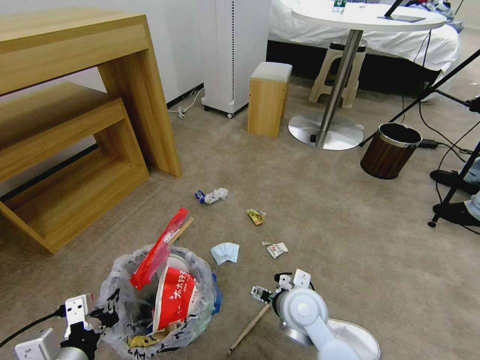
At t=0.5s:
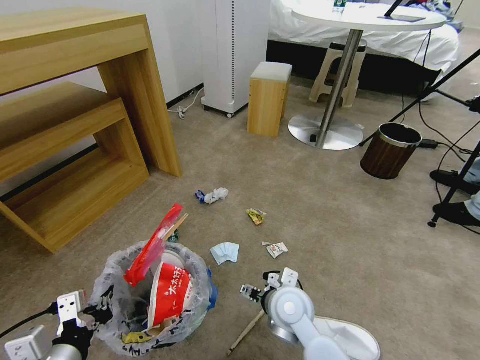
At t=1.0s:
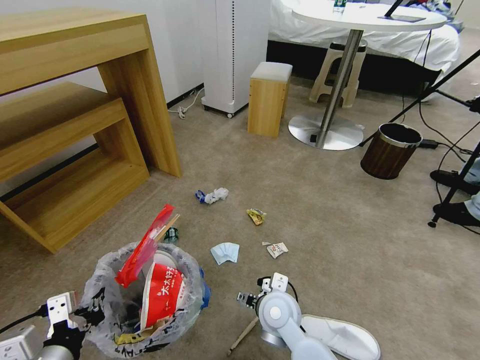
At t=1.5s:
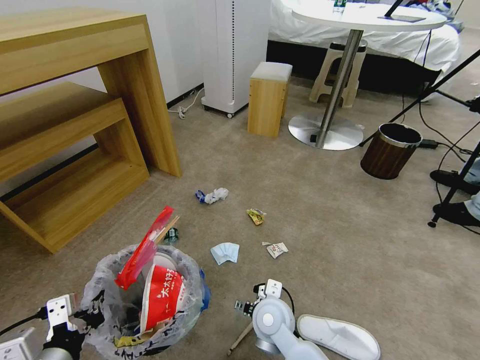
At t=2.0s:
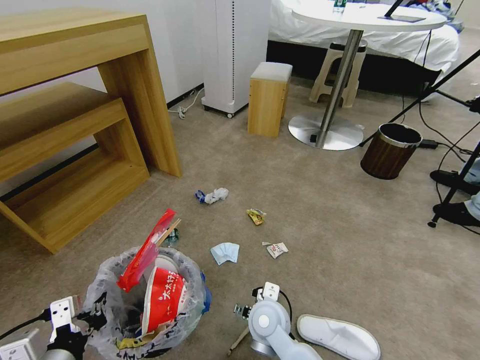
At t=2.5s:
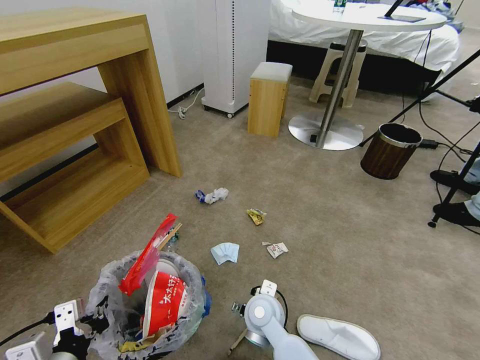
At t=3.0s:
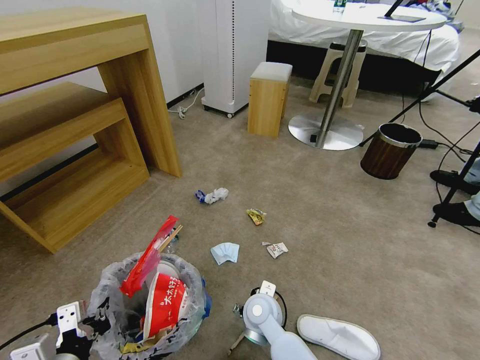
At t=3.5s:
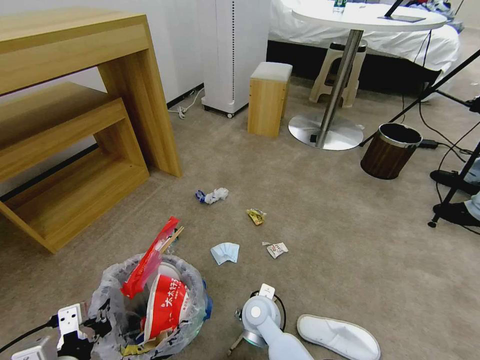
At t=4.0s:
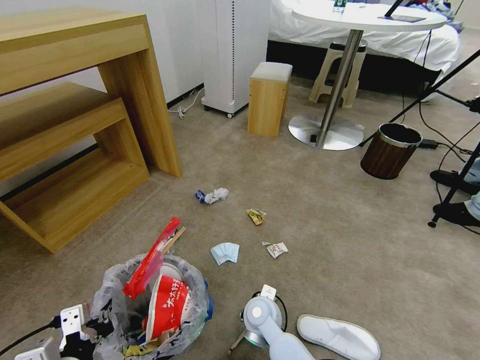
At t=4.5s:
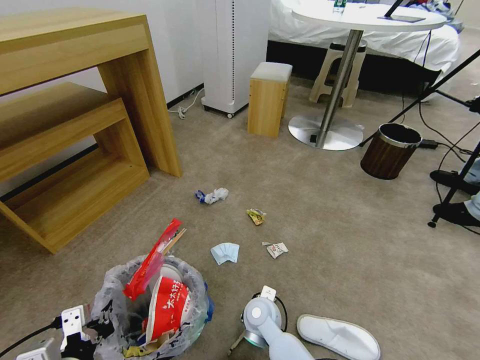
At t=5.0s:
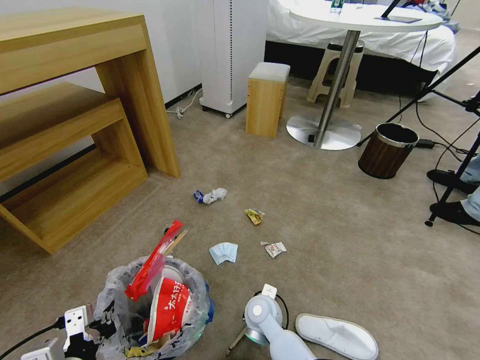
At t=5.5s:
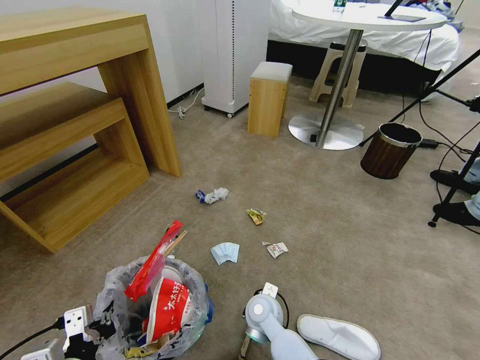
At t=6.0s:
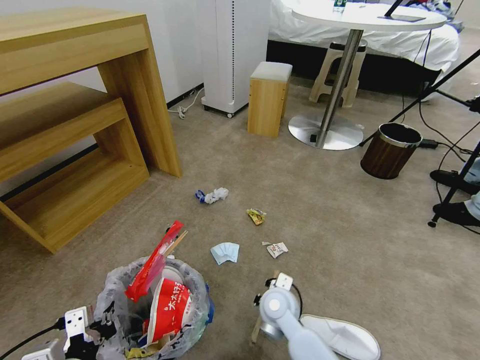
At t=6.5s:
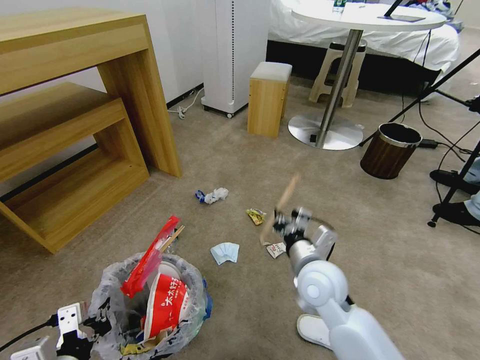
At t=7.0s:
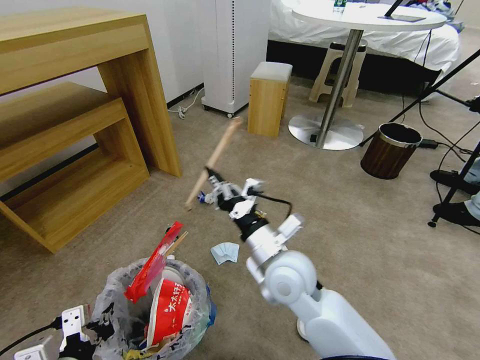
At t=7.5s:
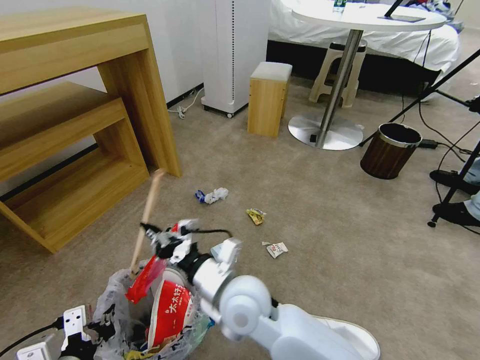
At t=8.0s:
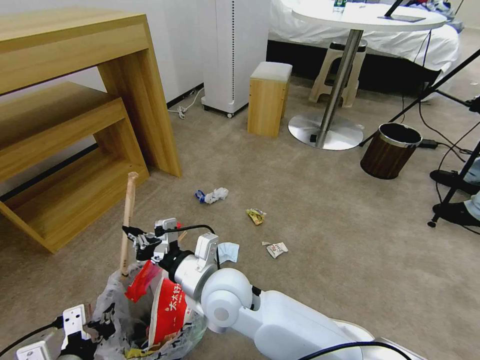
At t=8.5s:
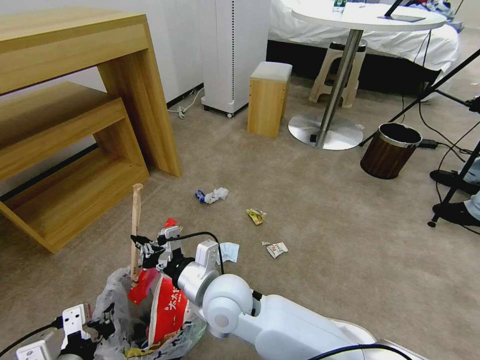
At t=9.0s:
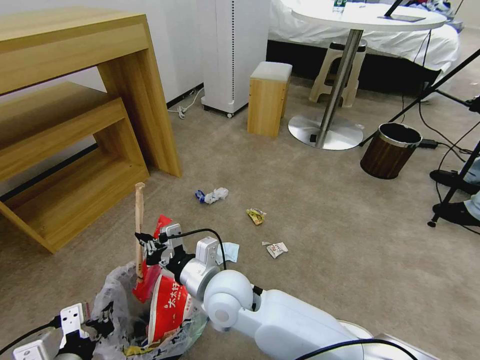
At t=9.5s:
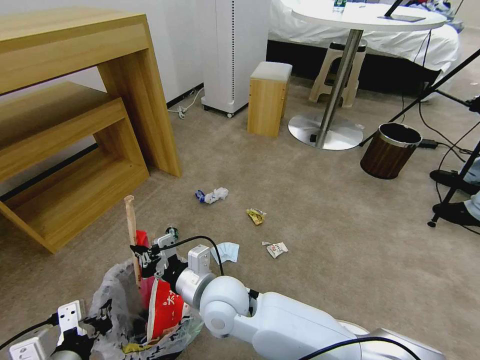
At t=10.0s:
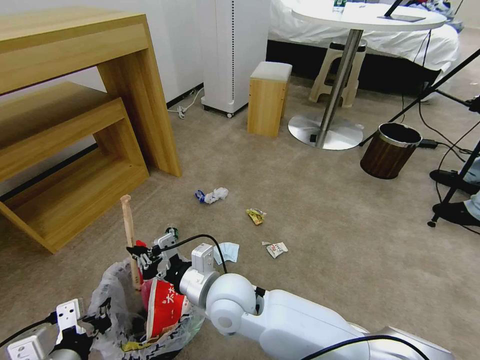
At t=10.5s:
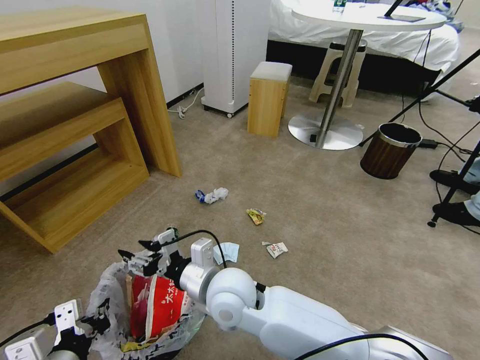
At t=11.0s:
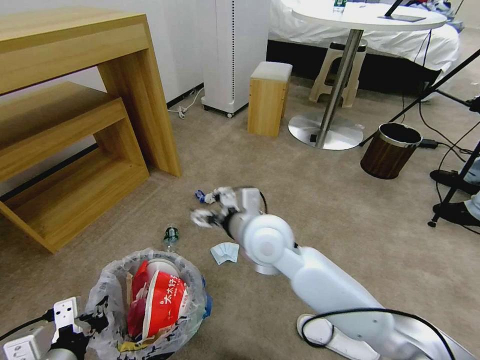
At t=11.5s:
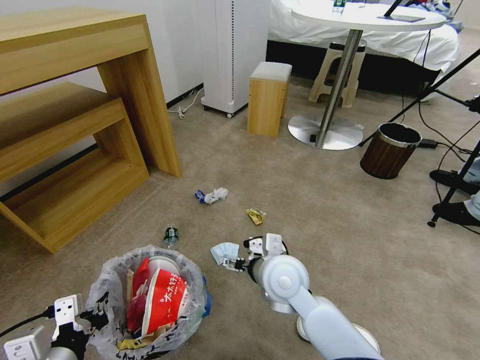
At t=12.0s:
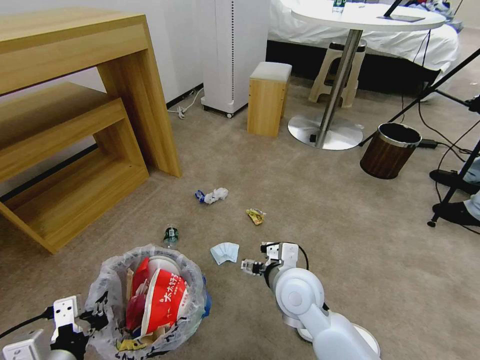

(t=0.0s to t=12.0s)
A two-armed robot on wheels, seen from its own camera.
Task of the whole recording: Pick up the trash bin and place the garbage on the floor into it.
t=0.0s - t=2.0s: The right gripper goes some 10 cm to the left and downward.
t=2.0s - t=4.0s: The right gripper ends up roughly 5 cm from where it was, and closes up.
t=4.0s - t=6.0s: The right gripper shifts by about 5 cm, and closes up.
t=6.0s - t=8.0s: The right gripper is displaced upward and to the left by about 20 cm.
t=8.0s - t=10.0s: The grippers make only small movements.
t=10.0s - t=12.0s: The right gripper shifts about 15 cm to the right, and opens its fingers.

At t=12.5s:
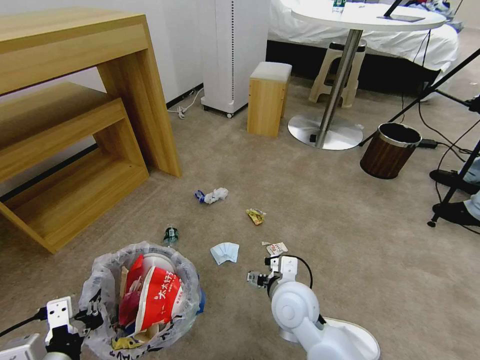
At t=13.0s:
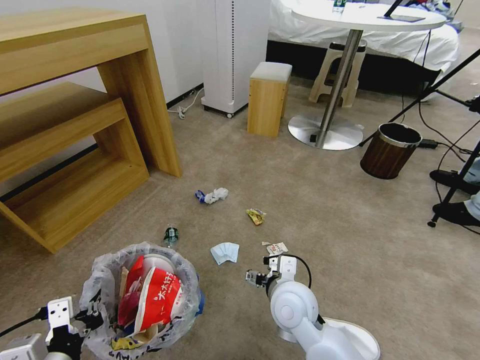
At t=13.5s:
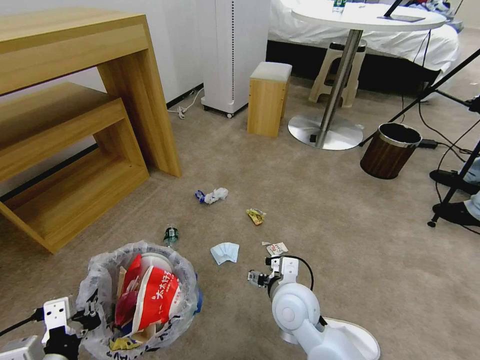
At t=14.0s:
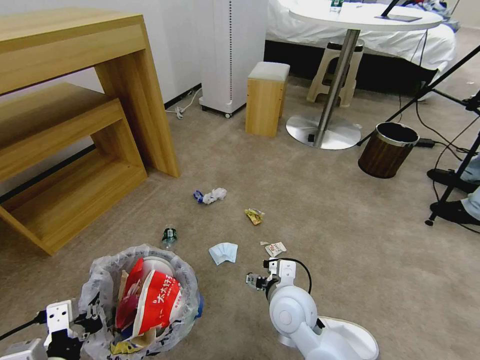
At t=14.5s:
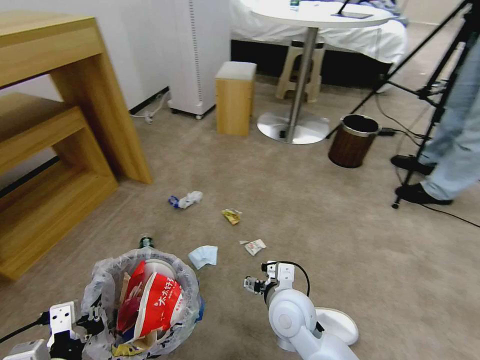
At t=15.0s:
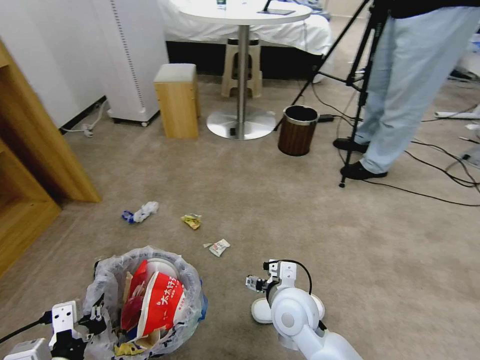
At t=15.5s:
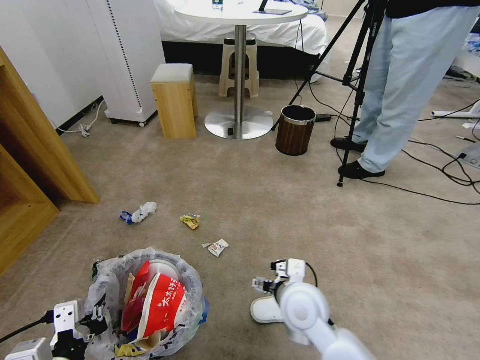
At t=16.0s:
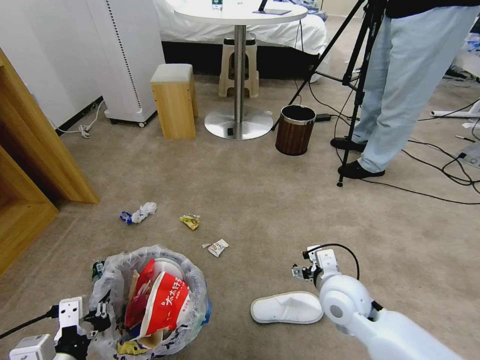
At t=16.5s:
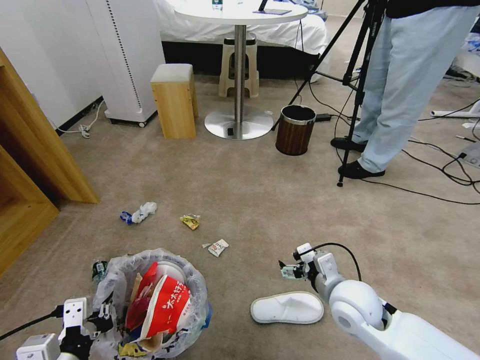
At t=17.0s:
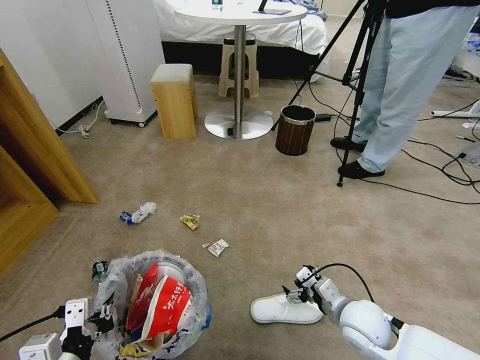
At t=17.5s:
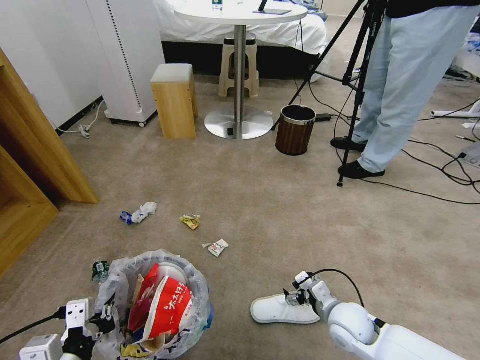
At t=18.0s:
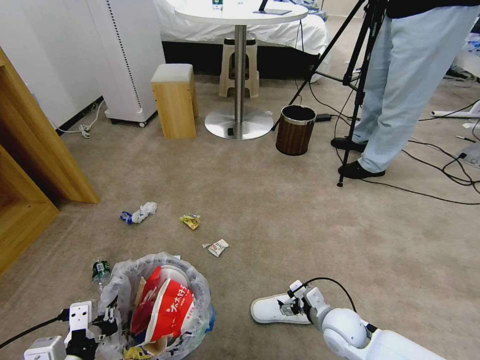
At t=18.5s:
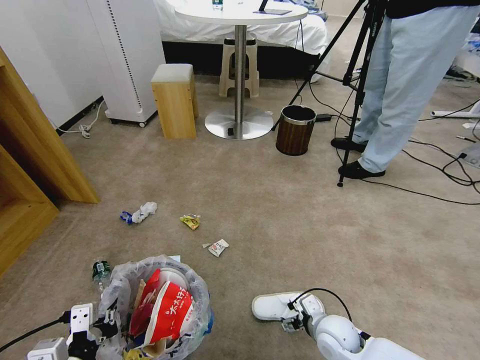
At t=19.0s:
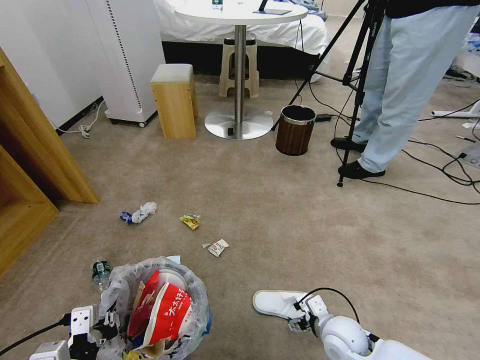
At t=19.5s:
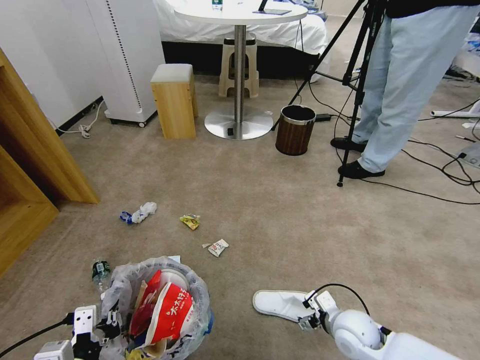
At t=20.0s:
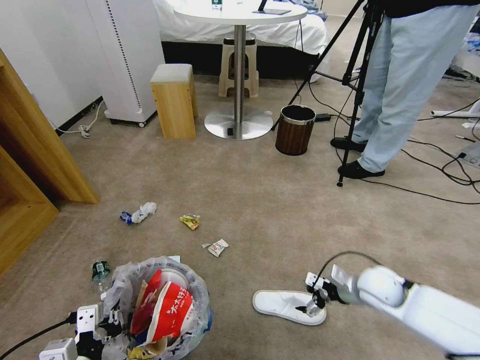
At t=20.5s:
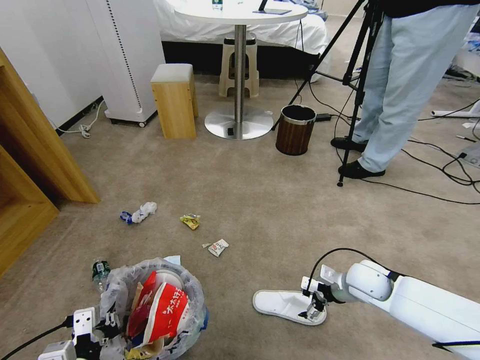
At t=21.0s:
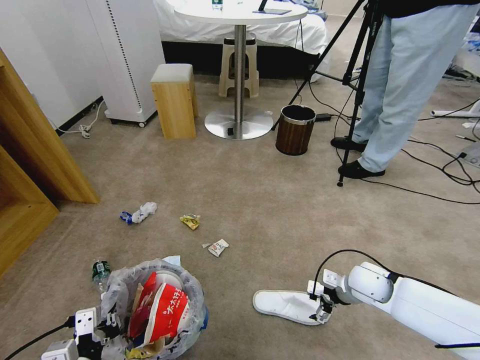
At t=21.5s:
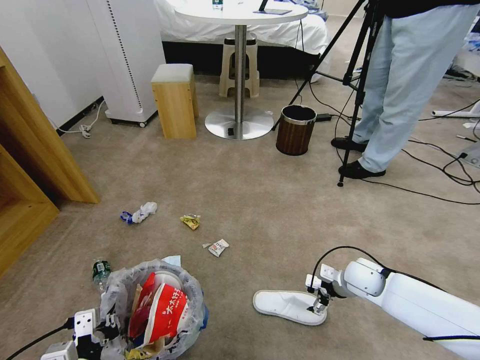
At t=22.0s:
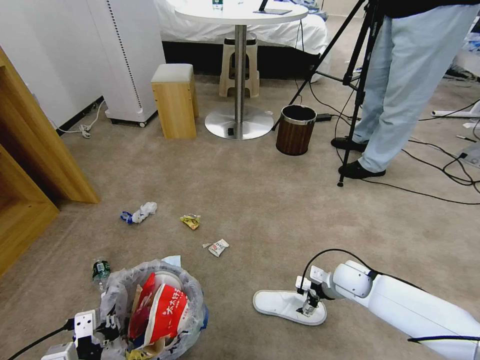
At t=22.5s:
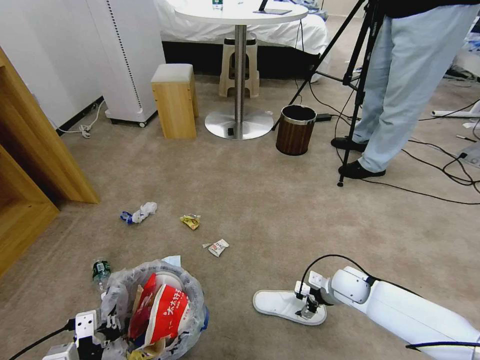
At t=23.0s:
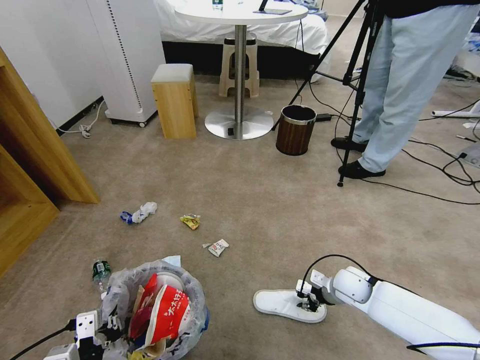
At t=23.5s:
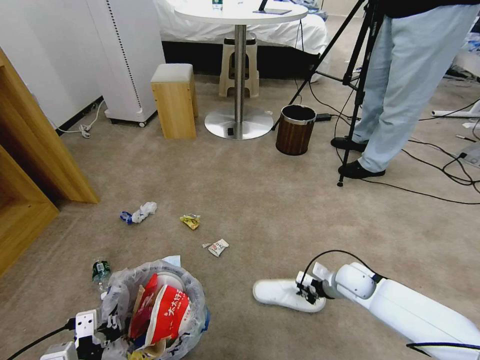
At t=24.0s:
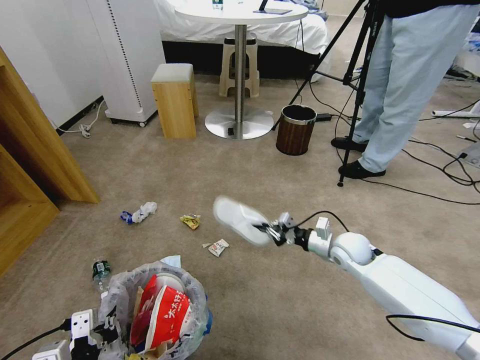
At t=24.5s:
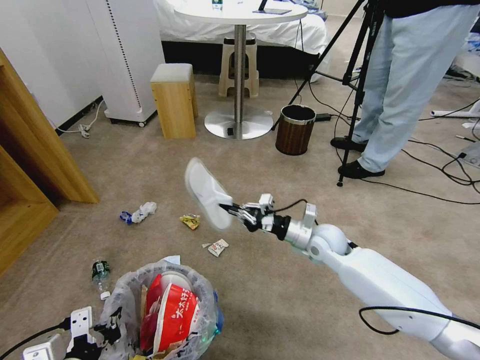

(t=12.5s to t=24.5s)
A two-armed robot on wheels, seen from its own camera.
Task of the whole recording: Pick up the trash bin and place the garbage on the floor into it.
t=14.5s - t=16.5s: The right gripper goes about 15 cm to the right.
t=16.5s - t=18.5s: The right gripper travels downward by roughly 15 cm.
t=18.5s - t=20.5s: The right gripper is displaced forward, to the right and upward by approximately 15 cm.
t=20.5s - t=22.5s: The right gripper is displaced downward by roughly 5 cm.
t=22.5s - t=24.5s: The left gripper goes roughly 5 cm upward. Meanwhile the right gripper goes approximately 15 cm upward, to the left and forward, and closes.

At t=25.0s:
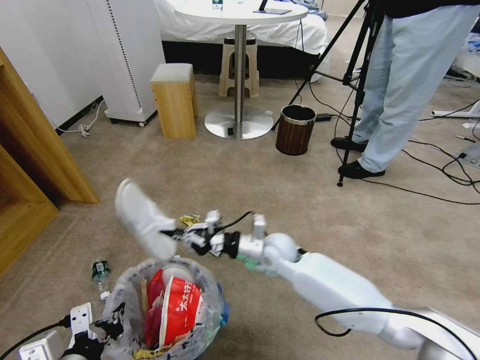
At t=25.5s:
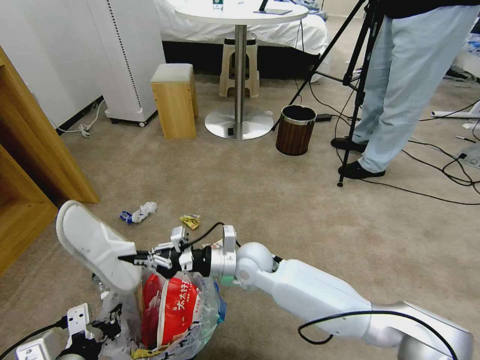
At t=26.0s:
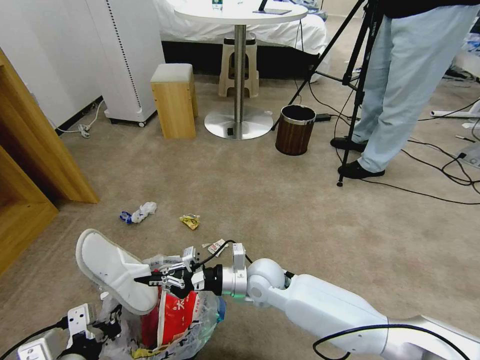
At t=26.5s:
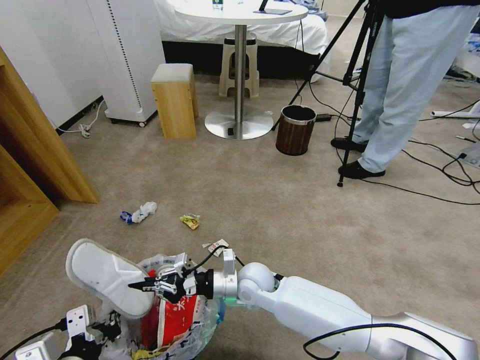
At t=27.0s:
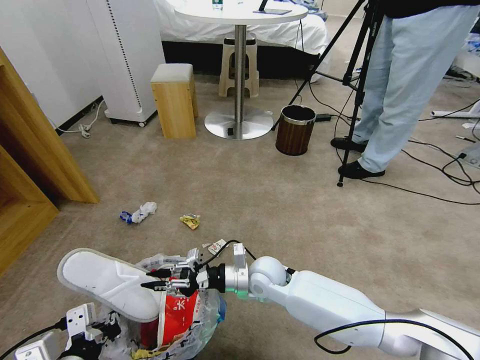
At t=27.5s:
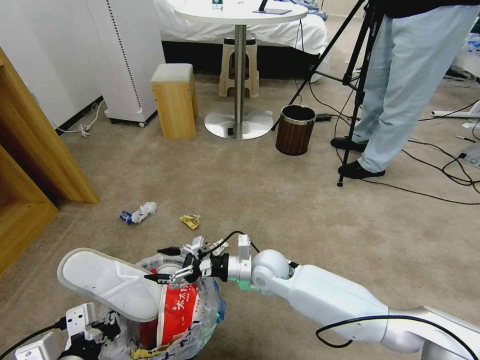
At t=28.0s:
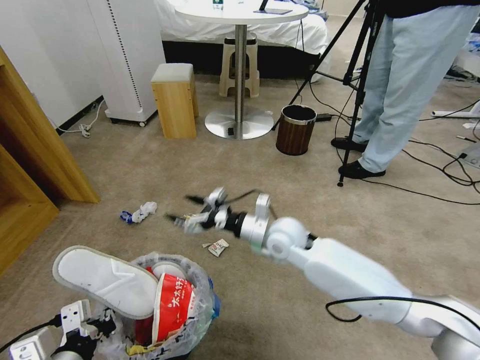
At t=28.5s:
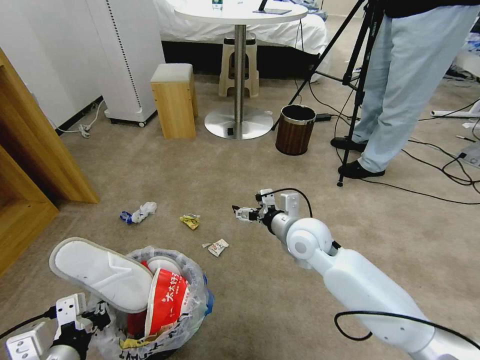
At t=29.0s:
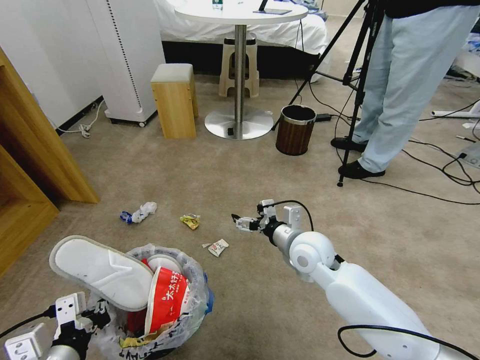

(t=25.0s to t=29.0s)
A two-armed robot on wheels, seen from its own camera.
Task of the whole recording: Pick up the trash bin and place the garbage on the floor into it.
t=25.0s - t=27.0s: The right gripper shifts by approximately 5 cm.
t=27.0s - t=29.0s: The right gripper heads to the right and upward, covering approximately 15 cm, and opens its fingers.
